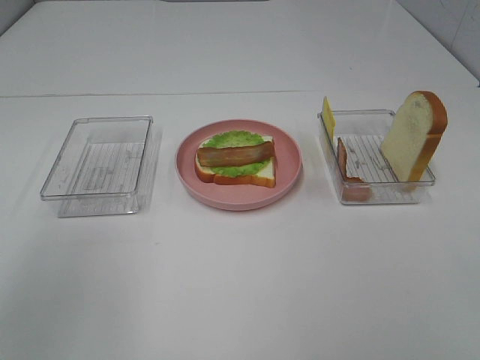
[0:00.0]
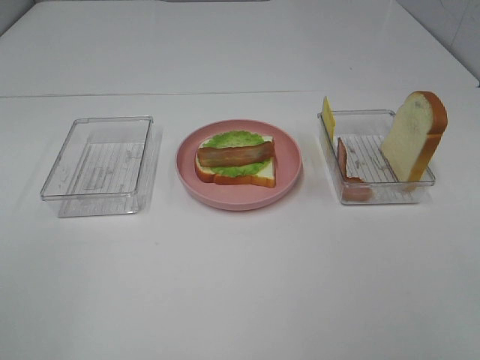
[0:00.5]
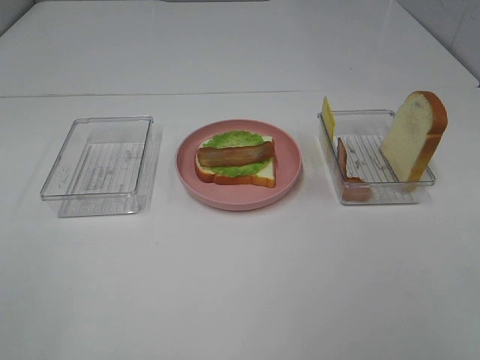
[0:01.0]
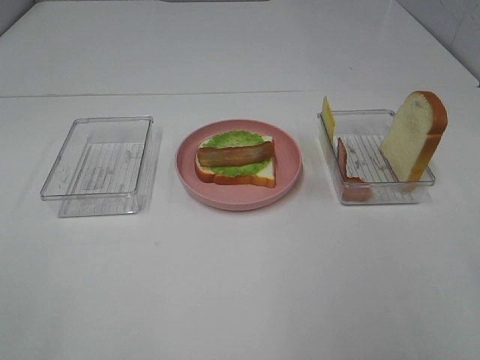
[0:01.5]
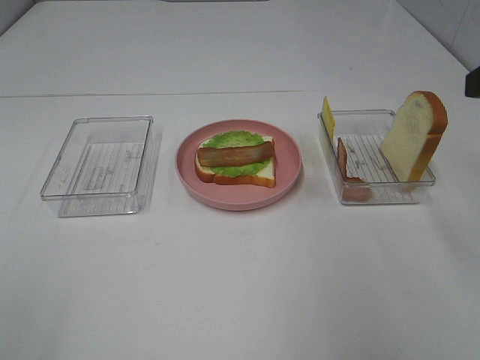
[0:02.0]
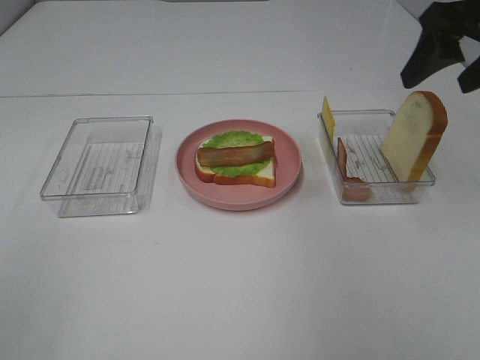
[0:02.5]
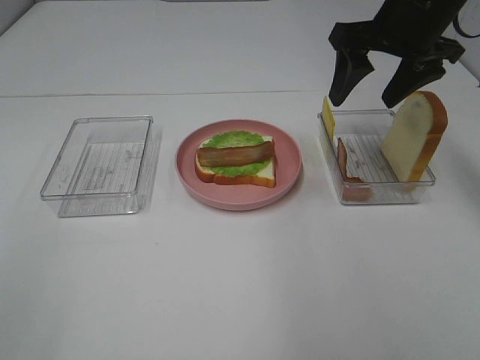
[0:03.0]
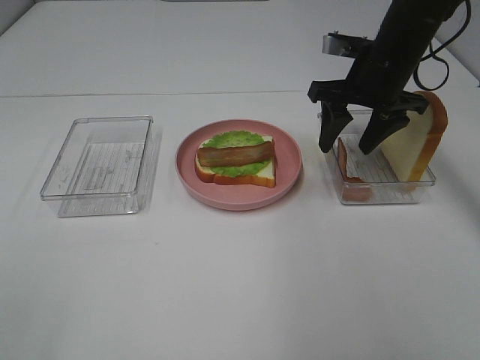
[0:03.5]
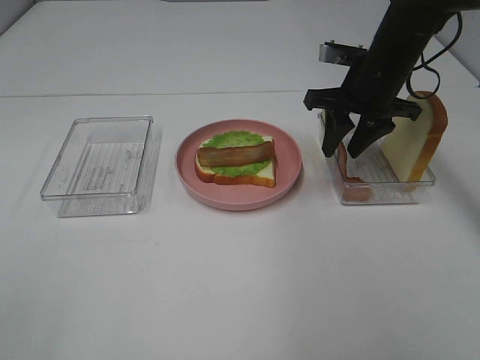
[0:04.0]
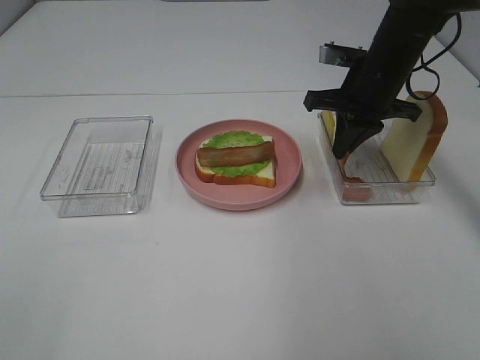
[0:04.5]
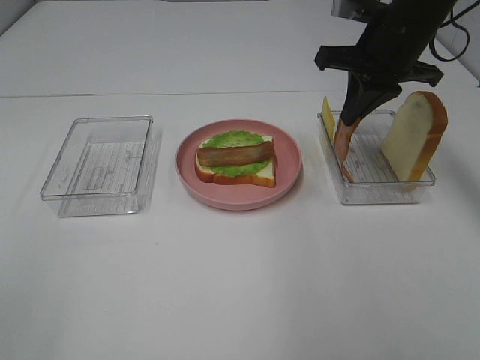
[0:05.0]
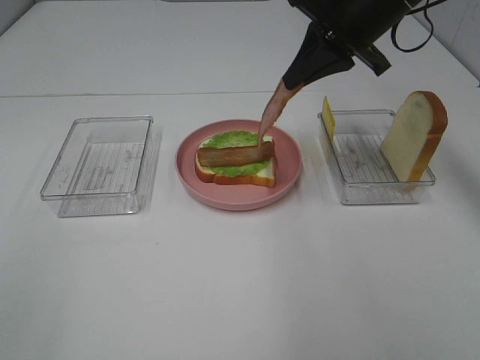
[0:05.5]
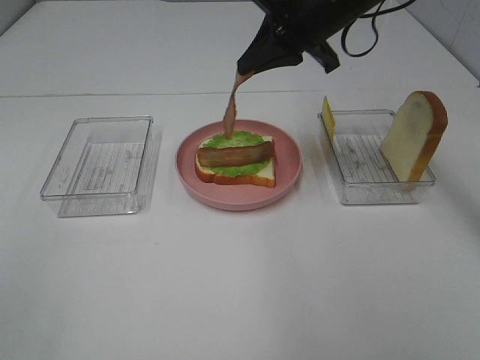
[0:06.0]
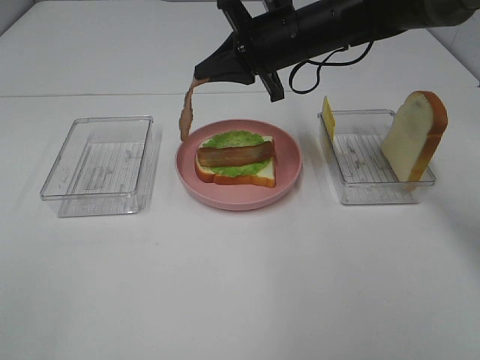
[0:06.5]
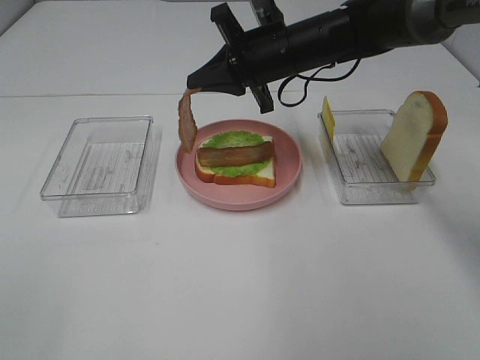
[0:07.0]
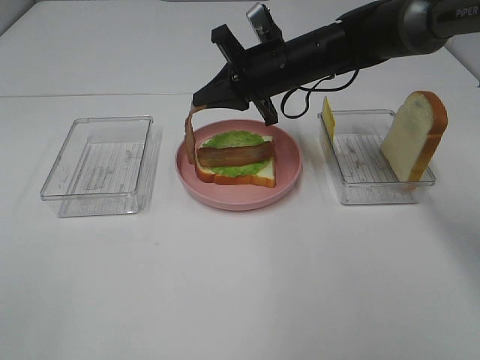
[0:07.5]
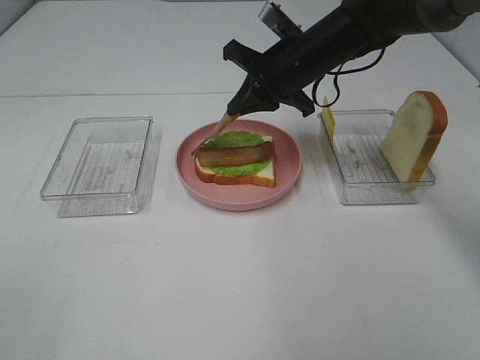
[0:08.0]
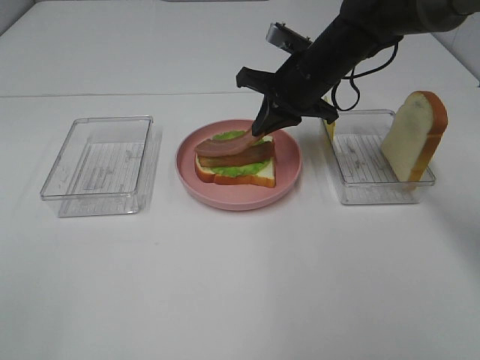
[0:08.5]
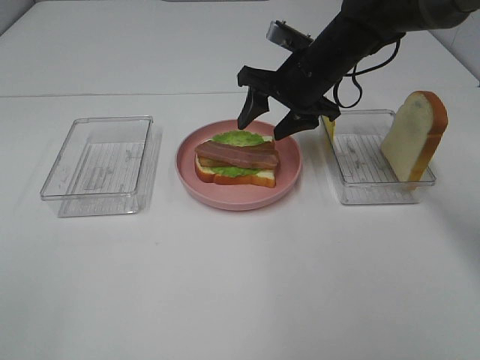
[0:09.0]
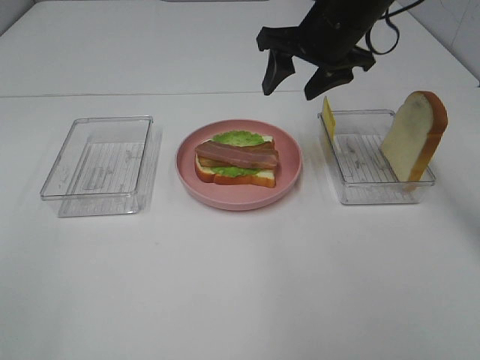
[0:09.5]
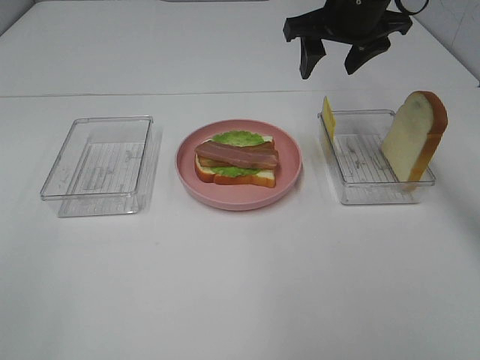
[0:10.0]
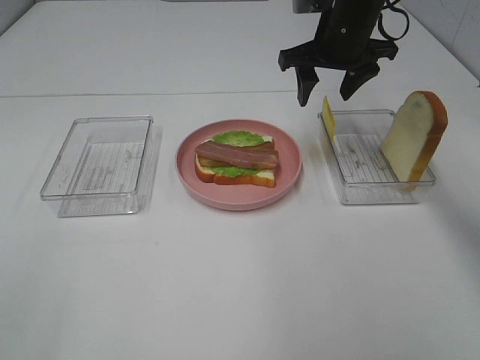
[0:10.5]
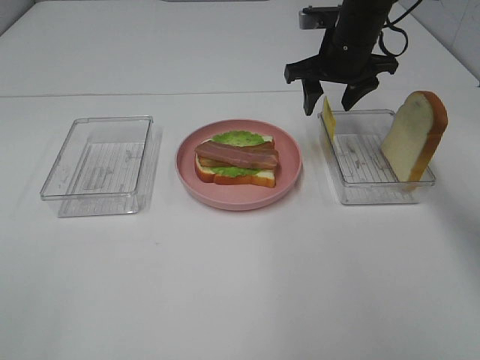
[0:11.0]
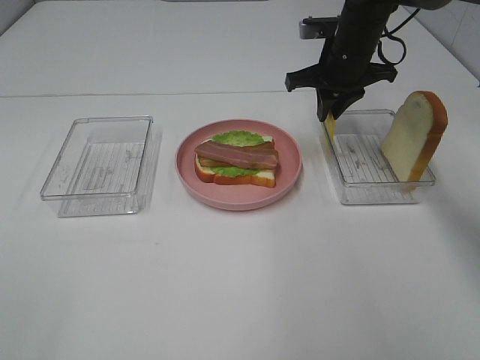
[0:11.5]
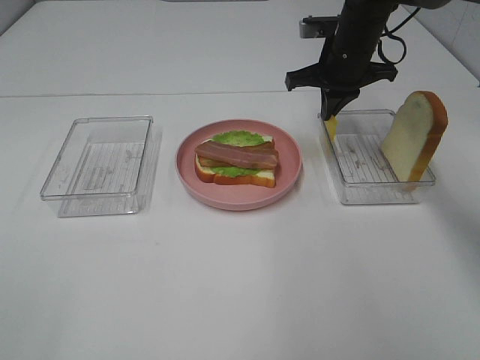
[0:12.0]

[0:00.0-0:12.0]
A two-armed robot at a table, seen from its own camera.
Task of the whole recording: Make sandwiches.
Step, 0:00.0 to 0:04.5: Right hand:grab the bacon.
Step, 0:05.0 to 0:08.5: Right hand:place bacon on bacon.
Step, 0:09.0 to 0:12.0: Right hand:grab the cheese slice.
0:02.0 to 0:04.0: The right gripper heads forward, downward and to the left, covering some 25 cm, and closes up.
0:04.0 to 0:06.0: The right gripper travels upward and to the left by some 10 cm, and closes.
0:06.0 to 0:08.0: The right gripper shifts approximately 10 cm downward.
0:08.0 to 0:10.0: The right gripper shifts roughly 10 cm upward, and opens up.
0:10.0 to 0:12.0: The right gripper moves downward, about 10 cm, and closes.

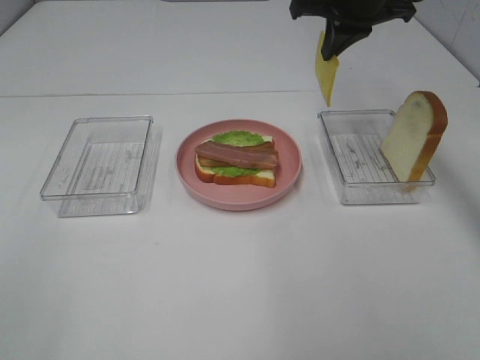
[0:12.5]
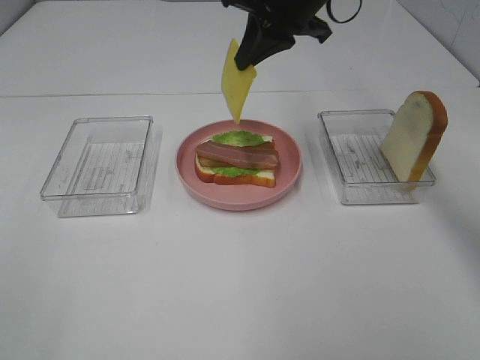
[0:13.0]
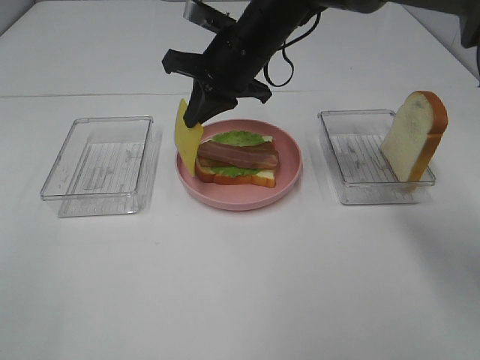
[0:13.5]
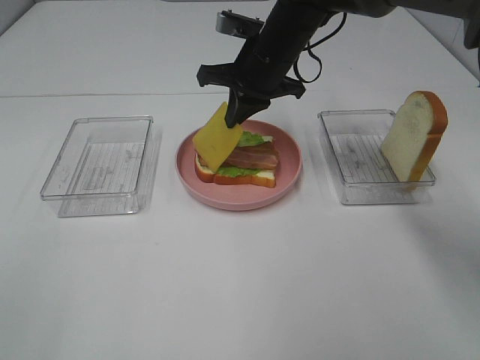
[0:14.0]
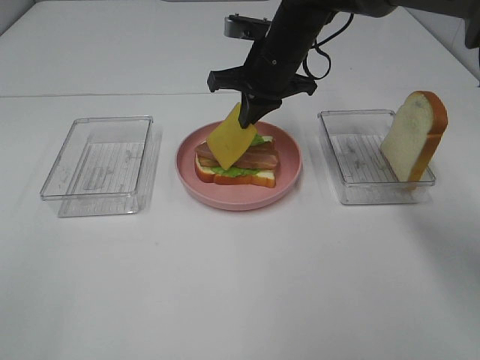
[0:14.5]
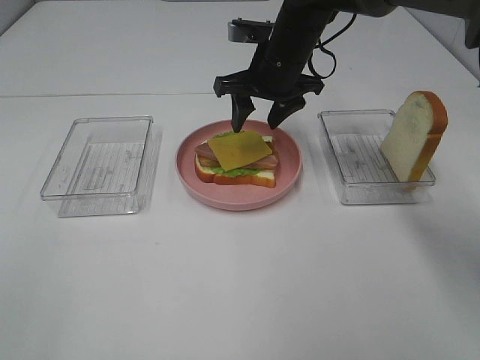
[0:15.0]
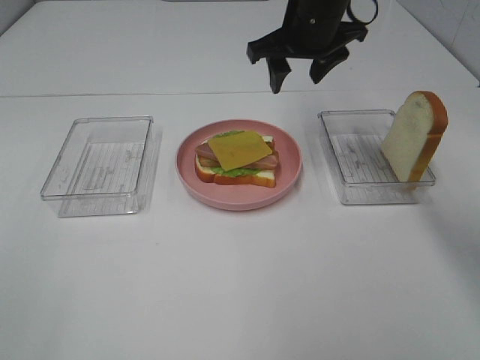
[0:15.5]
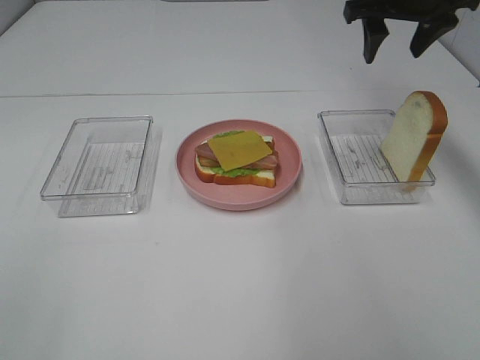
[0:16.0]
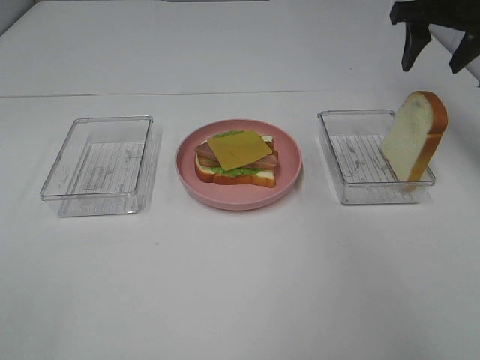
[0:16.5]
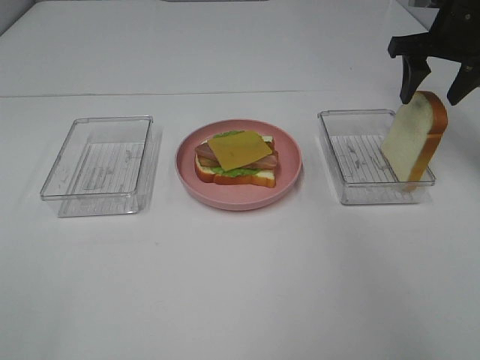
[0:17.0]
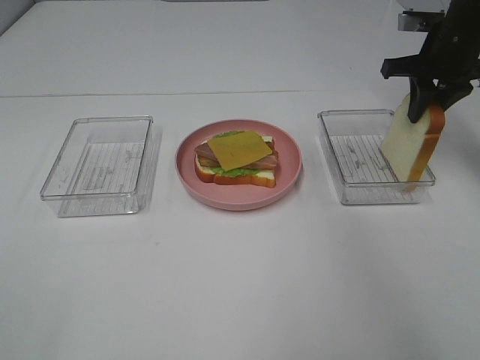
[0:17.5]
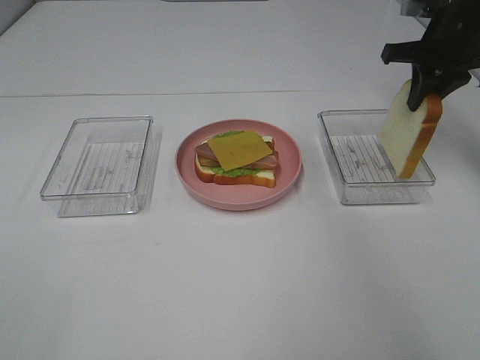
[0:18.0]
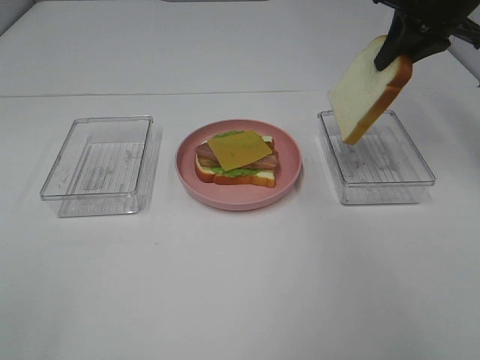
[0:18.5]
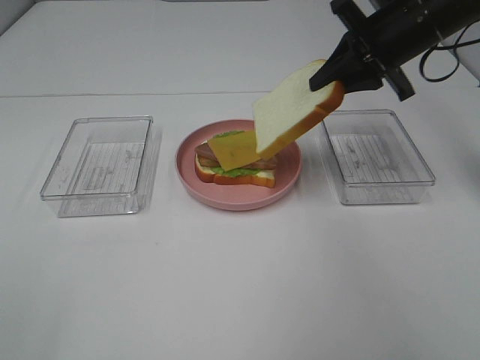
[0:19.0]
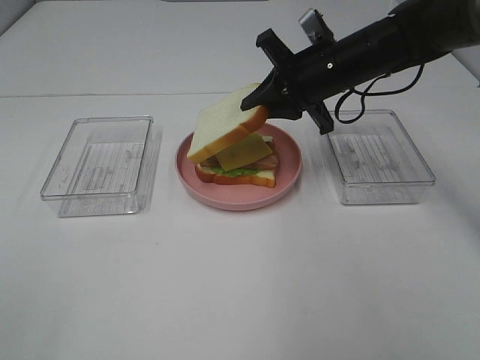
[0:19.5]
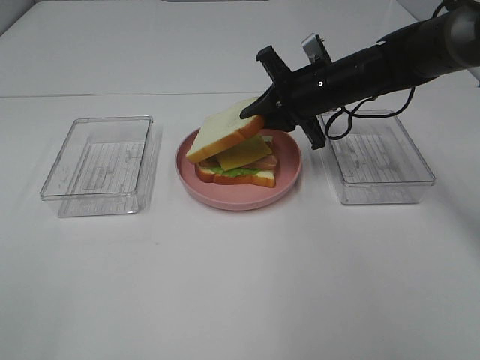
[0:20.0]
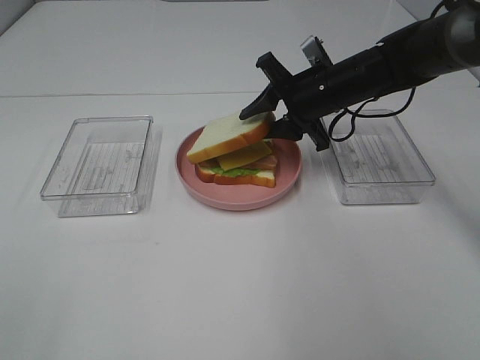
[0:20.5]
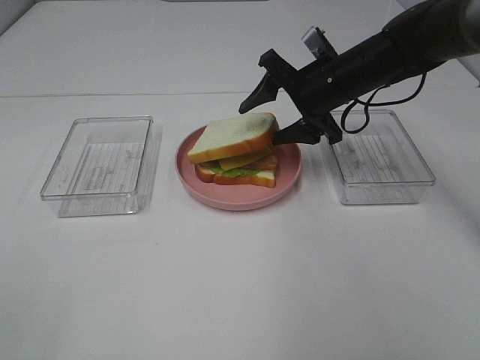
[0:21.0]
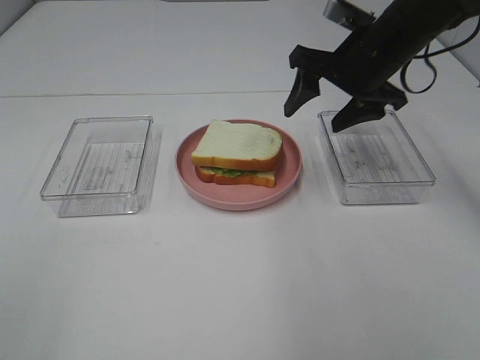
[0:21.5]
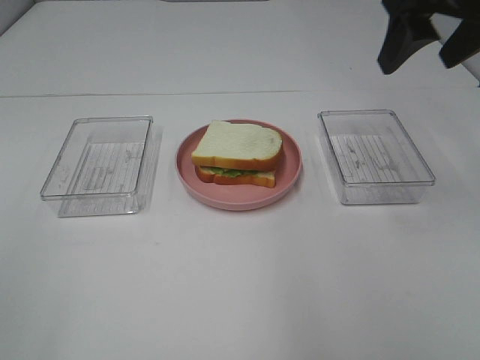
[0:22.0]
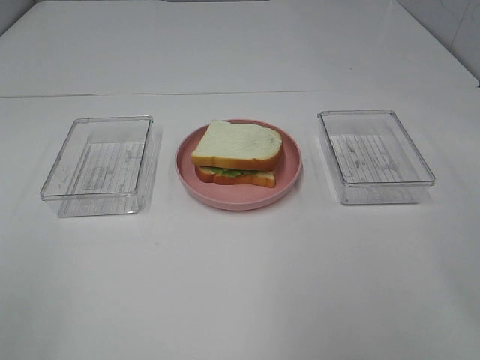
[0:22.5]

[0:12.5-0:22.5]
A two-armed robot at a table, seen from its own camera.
Task of the whole recording: Make sandwiches.
Step, 0:12.5 to 0:15.0: Right hand:place the cheese slice on top of the bacon.
Step, 0:15.5 to 0:17.5: Right hand:grab the bread slice.
Step, 0:18.0 to 0:21.5: Right hand:place the bread slice on the cheese slice.
0:12.5 to 0:14.5: The right gripper travels downward and to the left by roughly 15 cm.
0:14.5 to 0:16.5: The right gripper is displaced to the right by approximately 20 cm, and opens its fingers.
0:16.5 to 0:18.5: The right gripper reaches about 5 cm downward, then returns, and closes its fingers.
0:18.5 to 0:20.5: The right gripper goes approximately 20 cm downward and to the left, and opens up.
0:20.5 to 0:22.5: The right gripper is displaced backward, upward and to the right by roughly 35 cm, and opens up.
